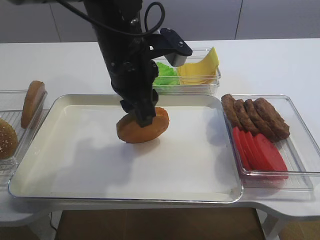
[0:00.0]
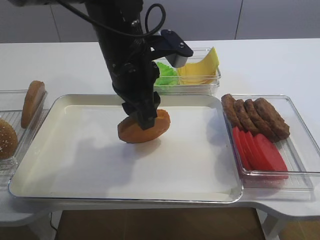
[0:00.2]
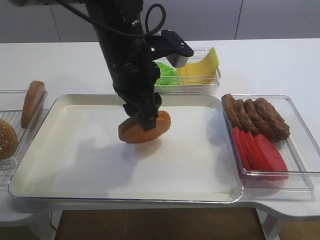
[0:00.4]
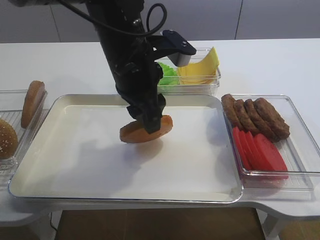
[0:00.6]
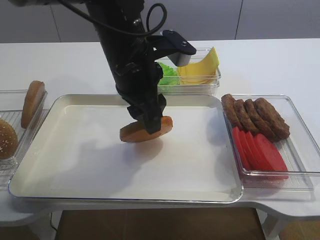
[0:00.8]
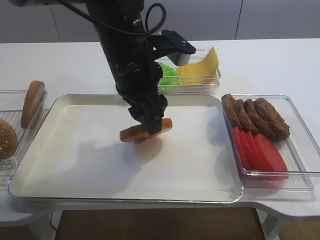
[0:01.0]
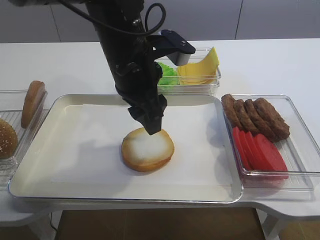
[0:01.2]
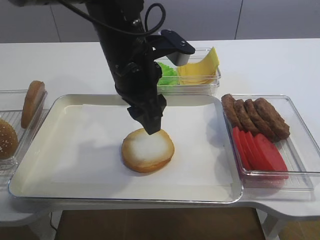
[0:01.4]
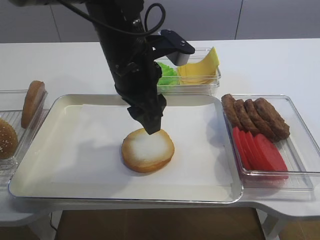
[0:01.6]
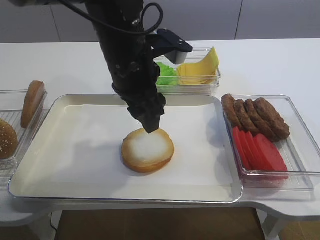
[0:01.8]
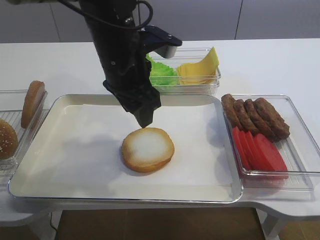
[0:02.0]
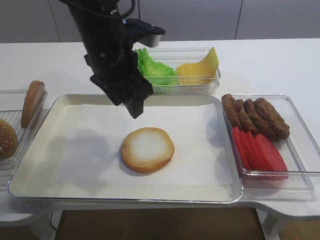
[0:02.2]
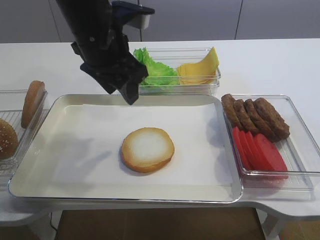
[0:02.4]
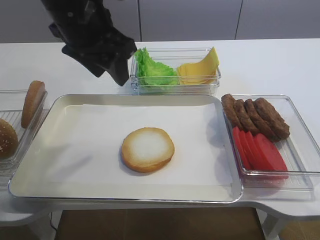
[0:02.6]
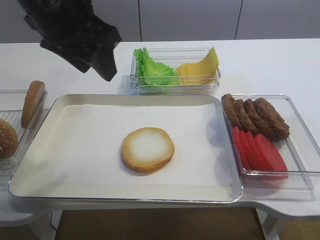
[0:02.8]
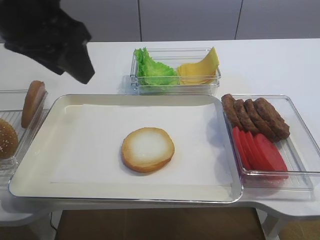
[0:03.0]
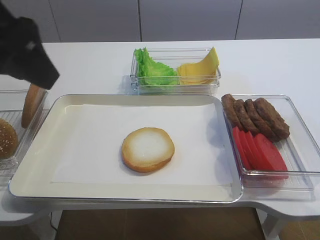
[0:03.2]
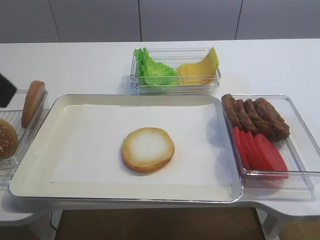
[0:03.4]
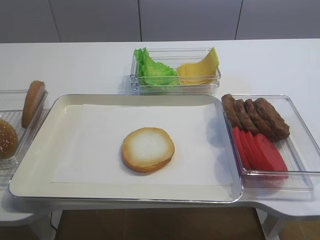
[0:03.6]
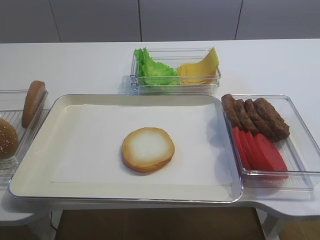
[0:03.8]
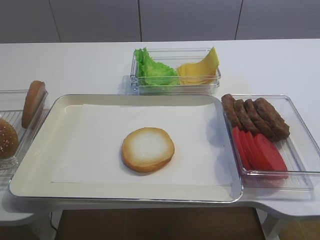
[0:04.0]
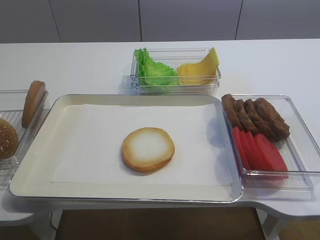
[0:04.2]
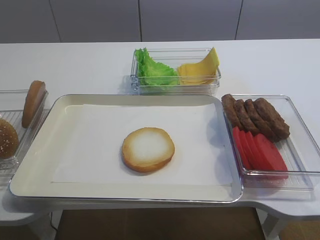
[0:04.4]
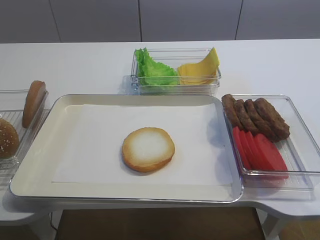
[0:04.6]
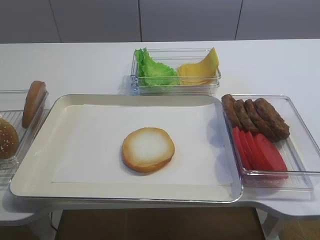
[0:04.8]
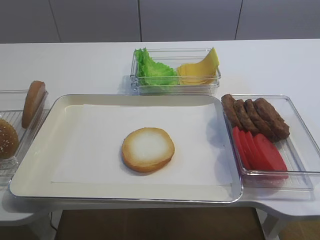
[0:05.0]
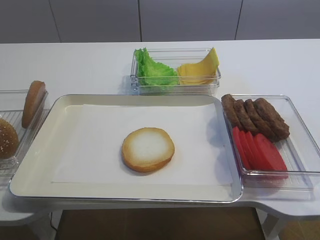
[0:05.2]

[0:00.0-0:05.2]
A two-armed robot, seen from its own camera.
0:00.0 to 0:01.8: The left gripper opens up.
0:01.8 to 0:03.4: The left gripper is displaced backward, to the left and upward by roughly 25 cm.
